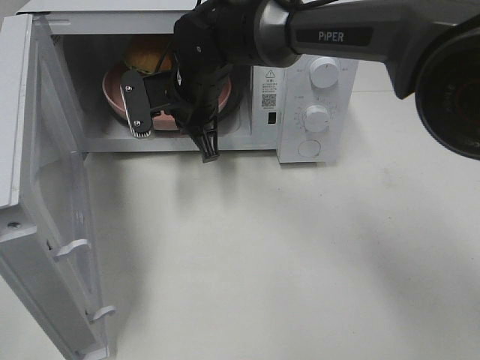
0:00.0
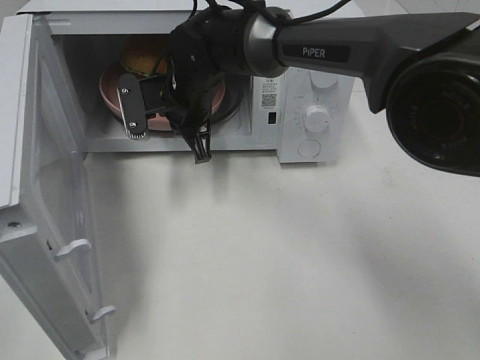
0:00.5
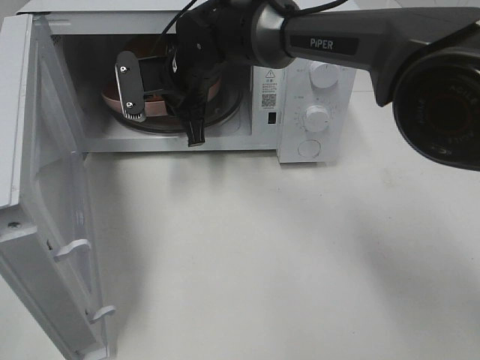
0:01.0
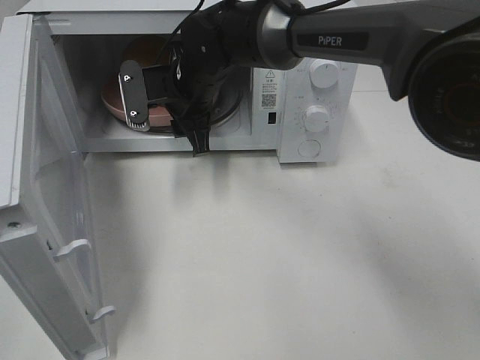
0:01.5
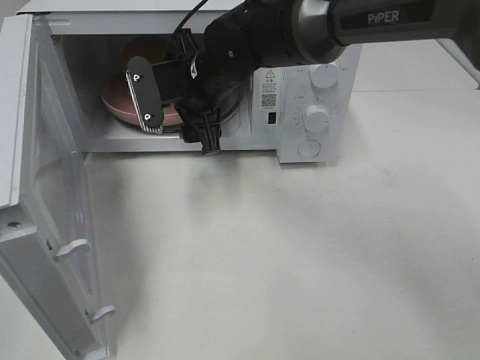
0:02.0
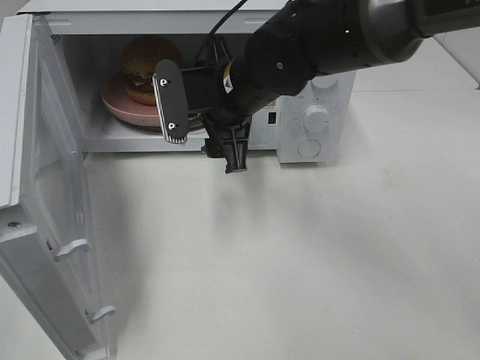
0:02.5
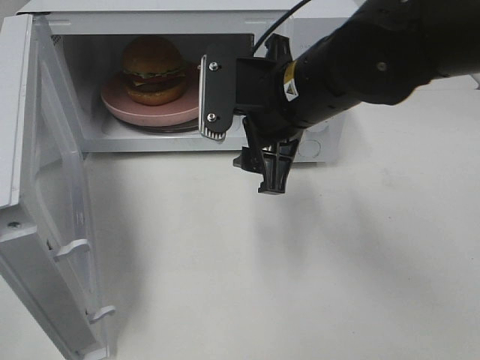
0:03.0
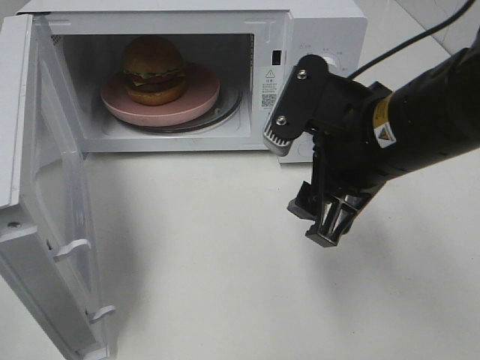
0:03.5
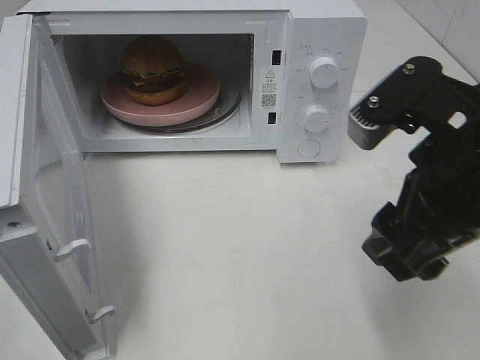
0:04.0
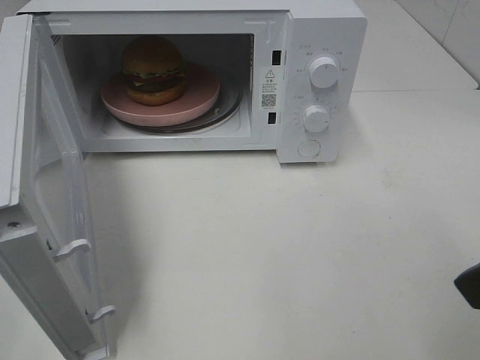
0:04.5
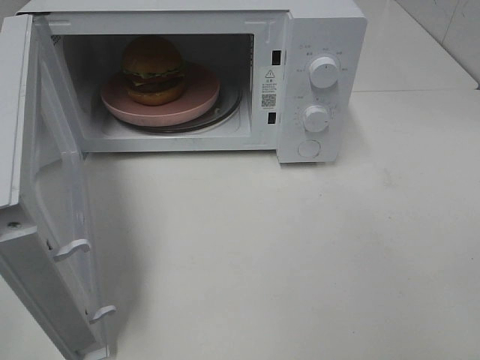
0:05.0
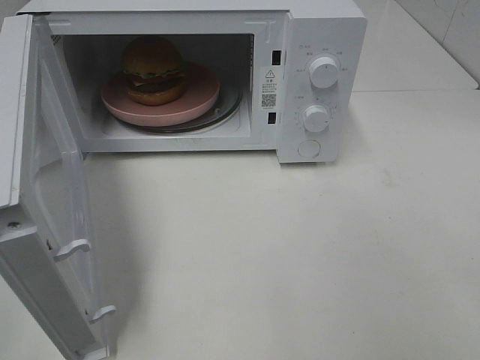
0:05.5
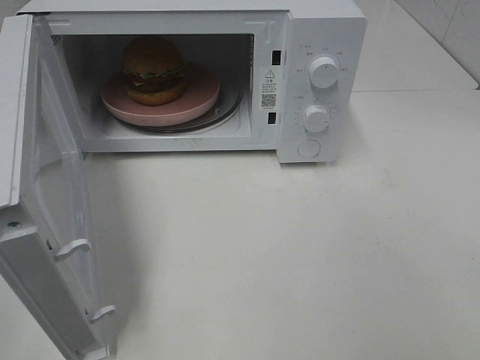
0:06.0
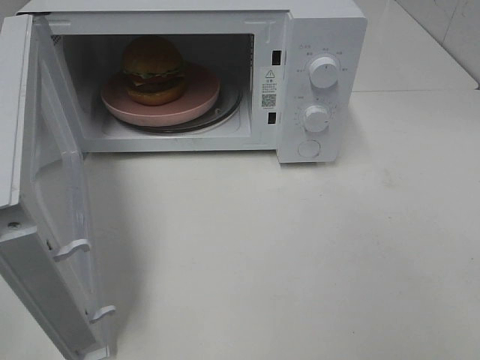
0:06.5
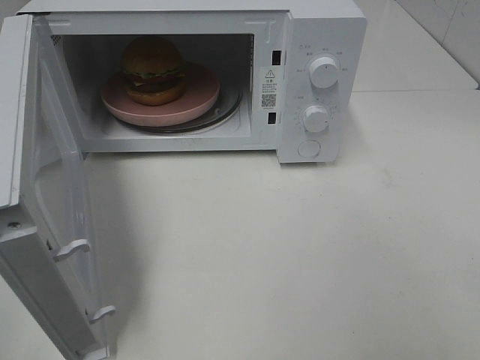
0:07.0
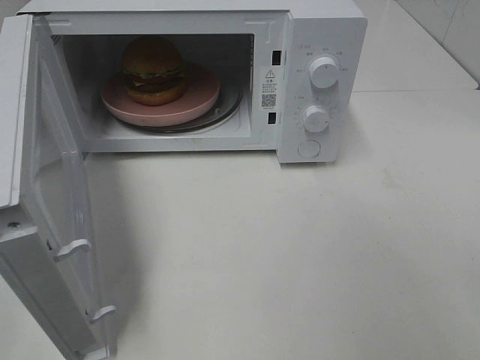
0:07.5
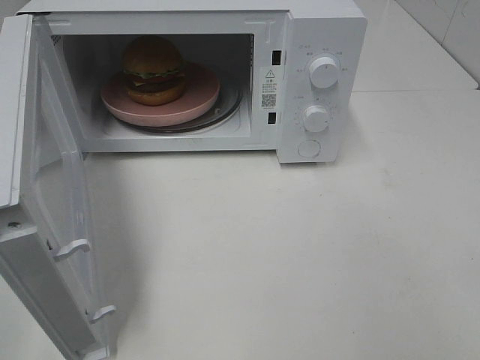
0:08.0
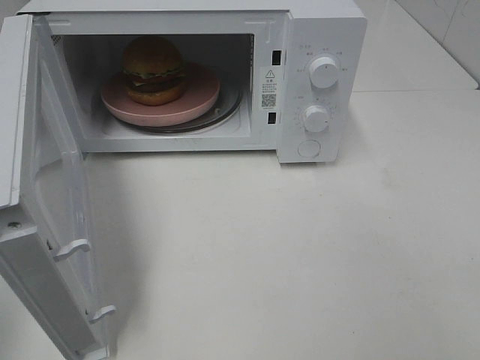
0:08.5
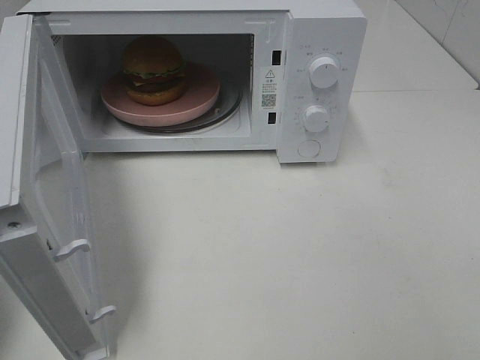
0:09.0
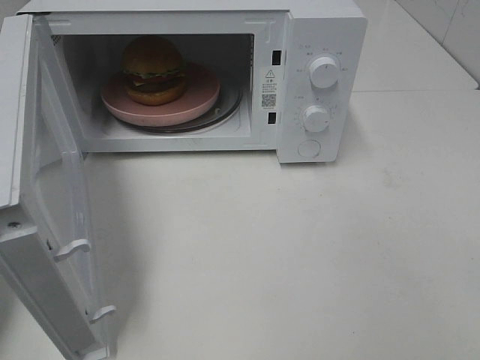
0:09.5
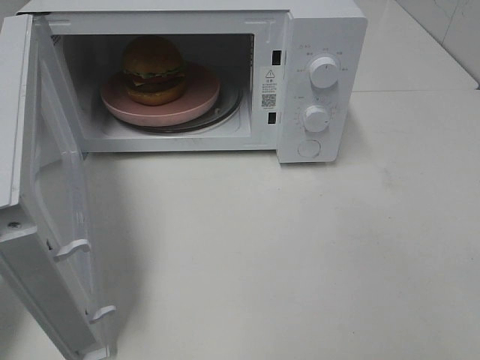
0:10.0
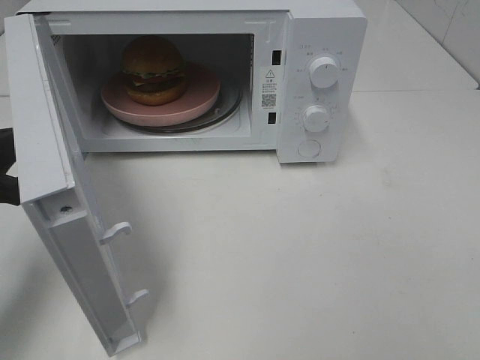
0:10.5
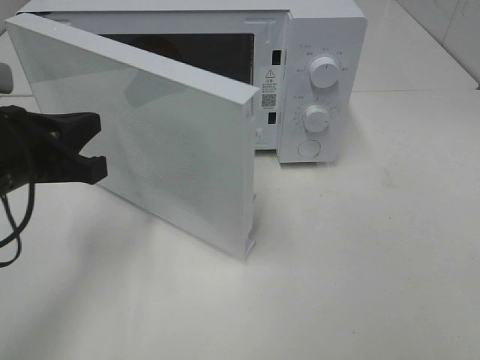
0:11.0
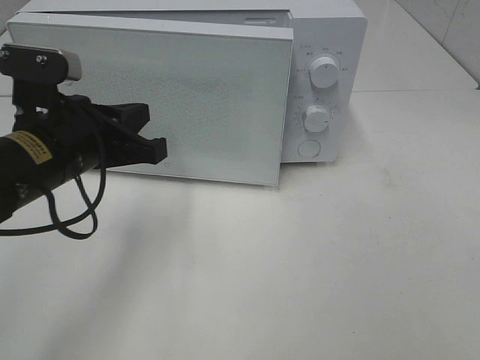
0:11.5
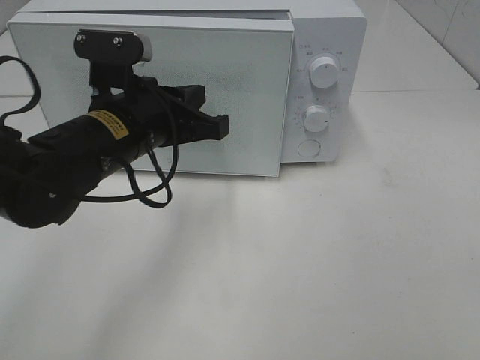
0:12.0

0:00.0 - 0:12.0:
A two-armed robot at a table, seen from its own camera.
Task of the whole recording: Heat the burger.
0:00.0 - 0:02.0: The right gripper opens its fingers.
0:02.0 - 0:04.0: The right gripper goes about 30 cm backward and to the right.
0:04.0 - 0:06.0: The right gripper heads backward and to the right, covering approximately 20 cm.
0:06.0 - 0:08.0: Both grippers stay about where they are.
0:08.0 - 0:10.0: The left gripper is displaced forward and downward by some 20 cm, and closes up.
0:10.0 - 0:12.0: The left gripper heads to the right and forward, covering about 20 cm.

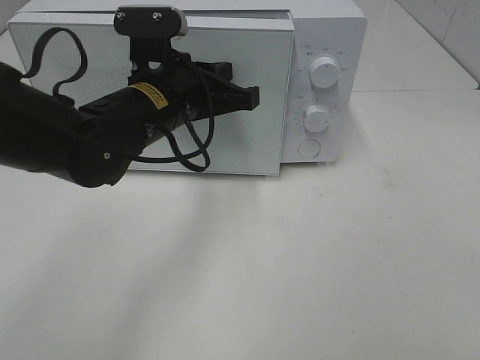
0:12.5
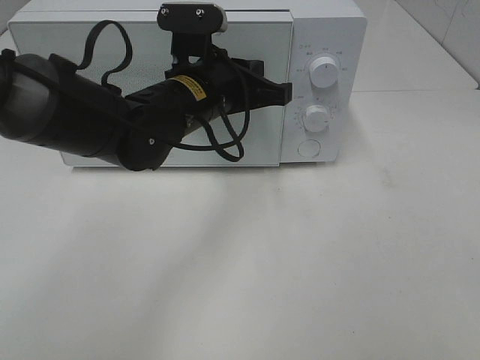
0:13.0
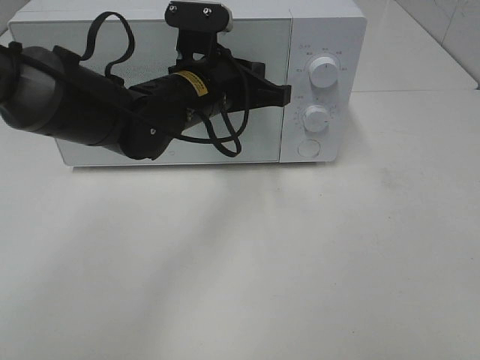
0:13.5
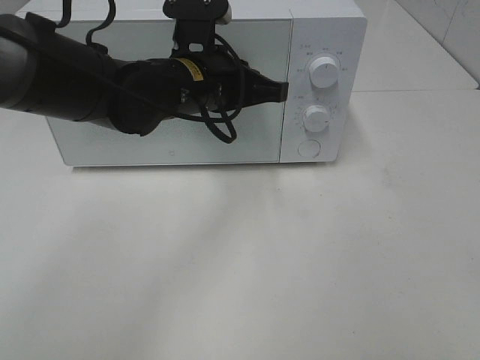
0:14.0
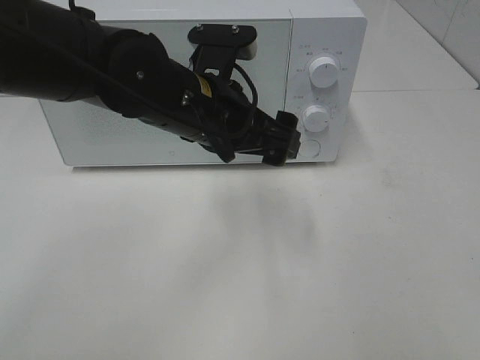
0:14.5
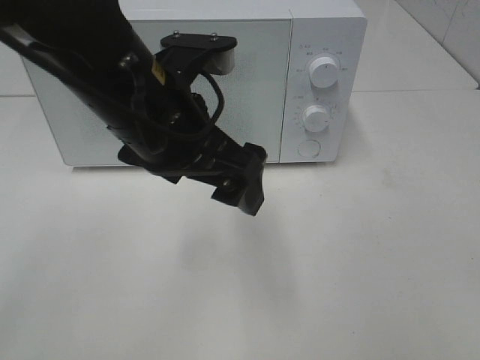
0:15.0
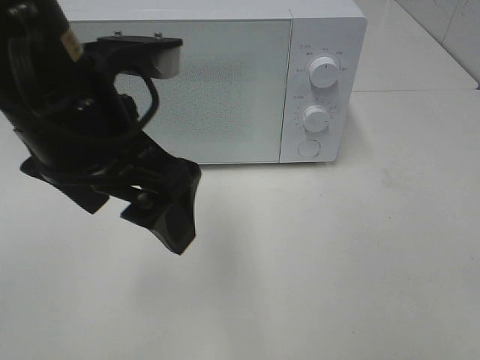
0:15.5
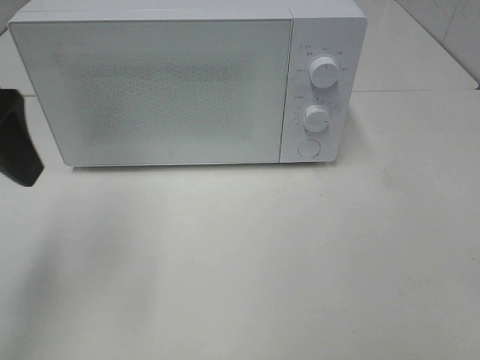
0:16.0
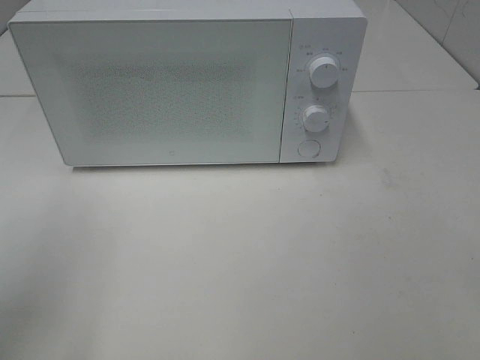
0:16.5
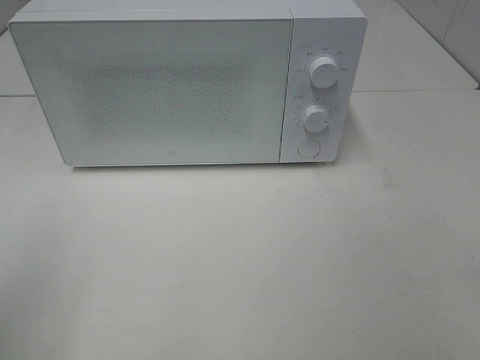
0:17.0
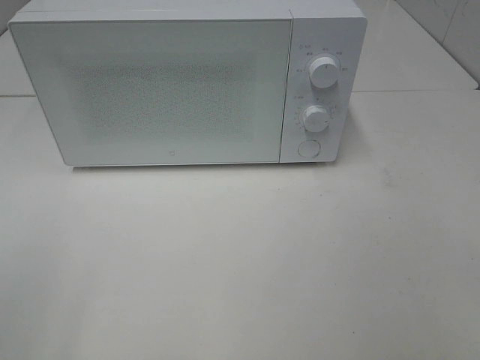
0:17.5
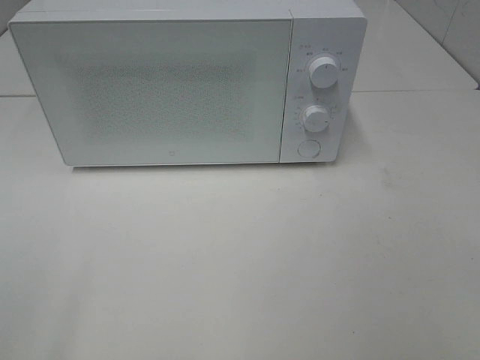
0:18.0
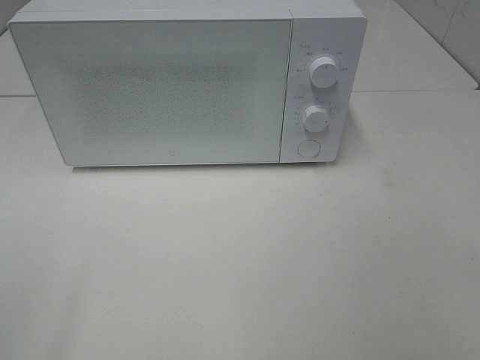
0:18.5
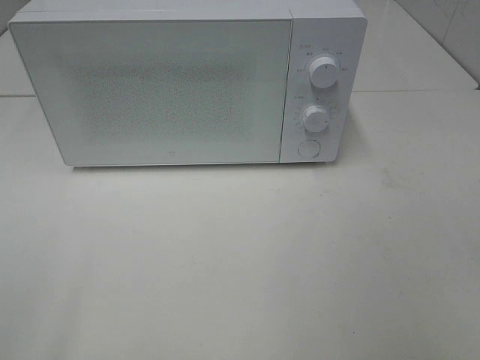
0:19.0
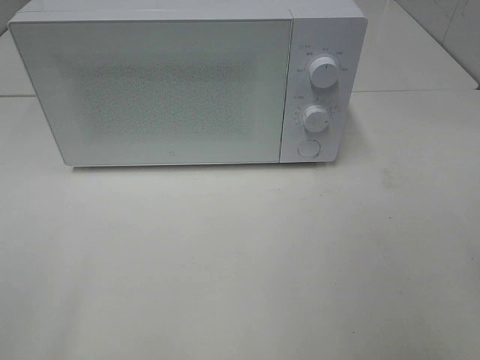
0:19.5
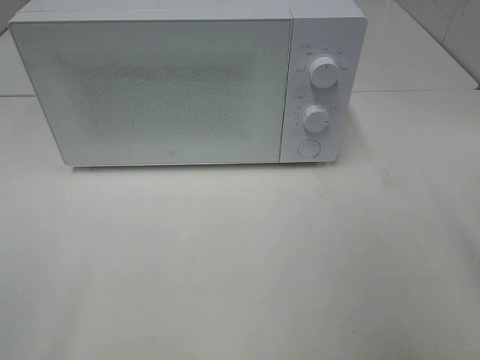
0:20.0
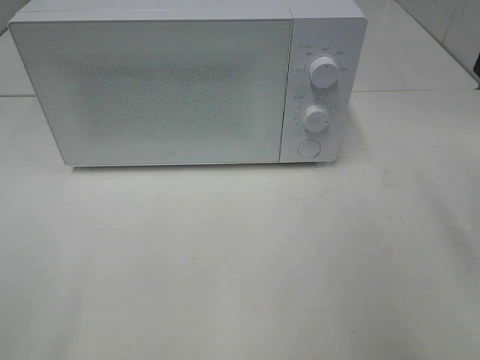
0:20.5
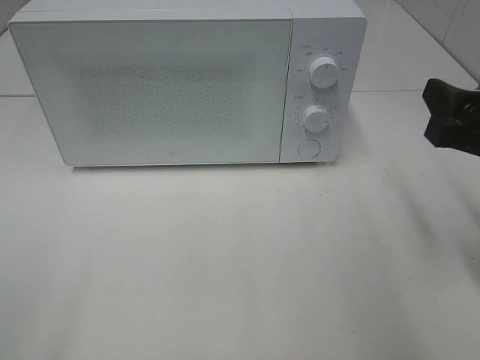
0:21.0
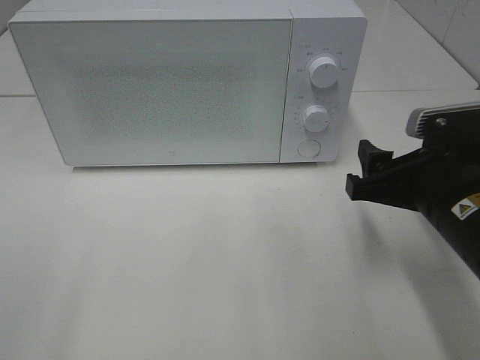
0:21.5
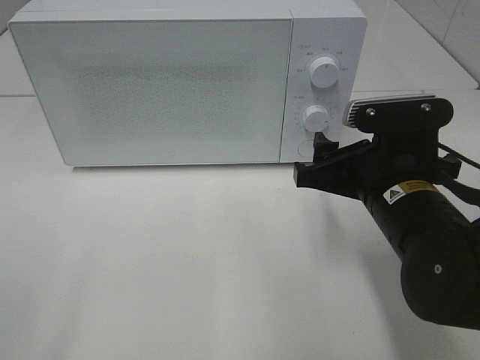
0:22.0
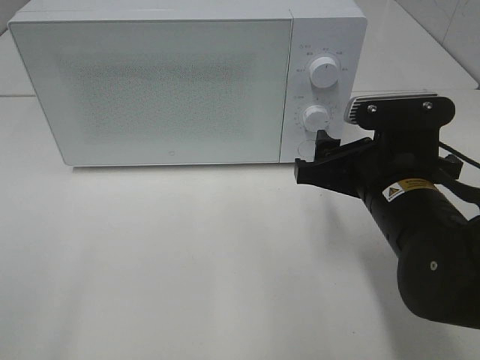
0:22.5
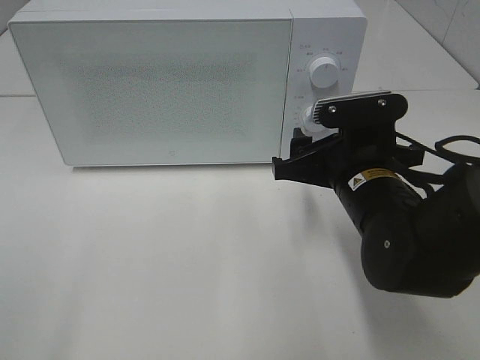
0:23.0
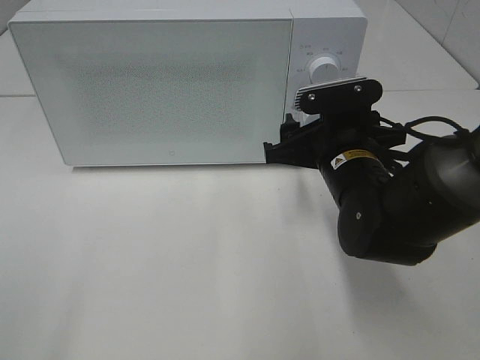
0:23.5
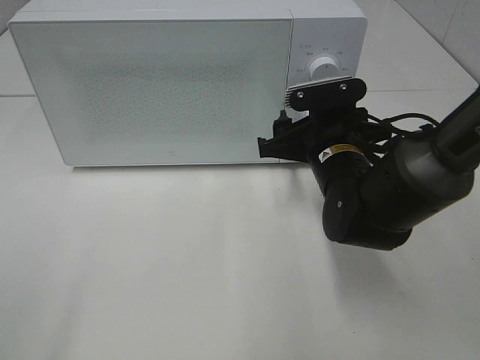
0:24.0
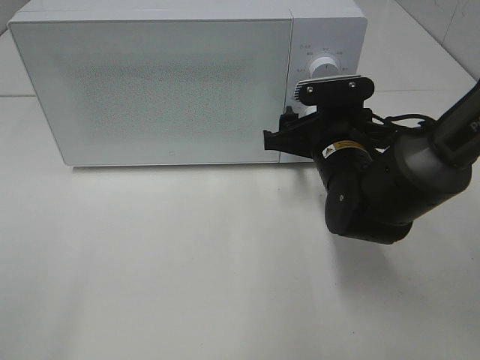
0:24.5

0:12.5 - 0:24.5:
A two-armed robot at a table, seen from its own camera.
Task of the whole recording: Heat the burger.
0:12.5 - 0:14.5: The left gripper opens its fingers.
0:14.5 - 0:16.5: The left gripper is displaced to the left and backward by some 30 cm.
0:16.5 - 0:18.5: The left gripper travels backward by roughly 15 cm.
0:20.5 - 0:22.5: The right gripper is displaced to the left and downward by about 15 cm.
0:22.5 - 0:24.5: The right gripper goes roughly 10 cm forward.

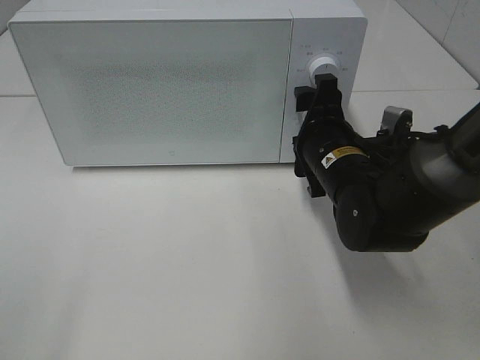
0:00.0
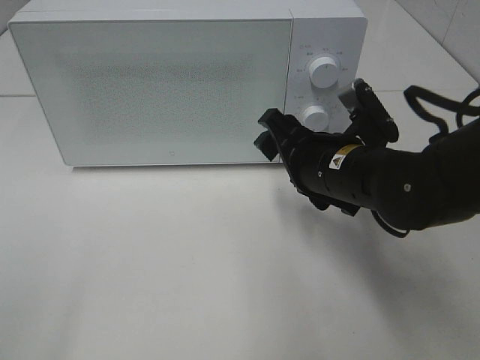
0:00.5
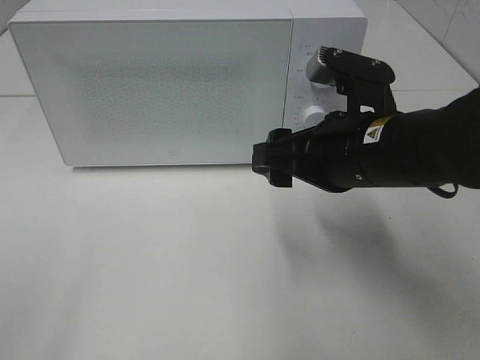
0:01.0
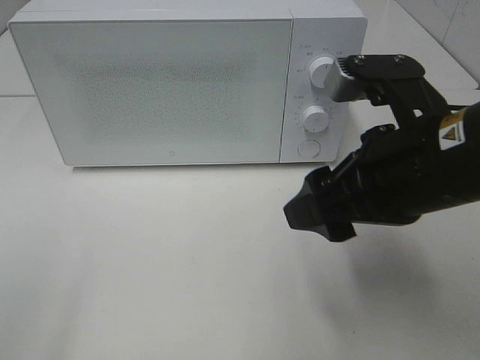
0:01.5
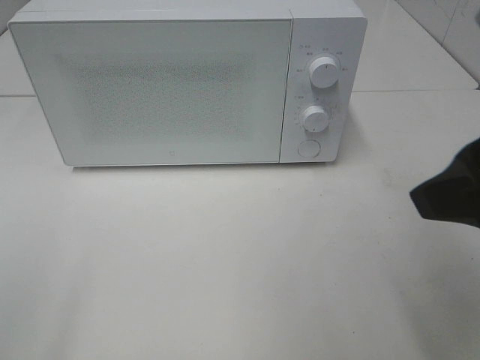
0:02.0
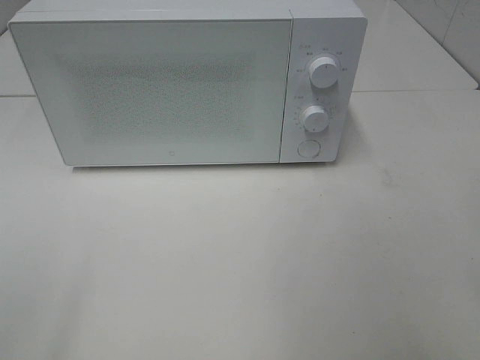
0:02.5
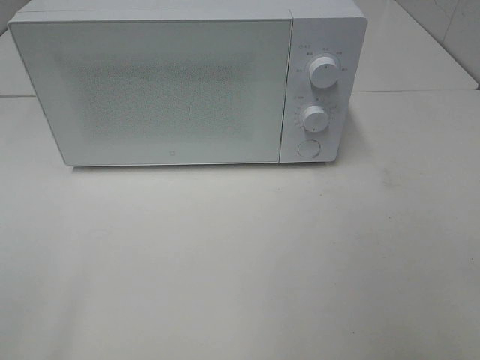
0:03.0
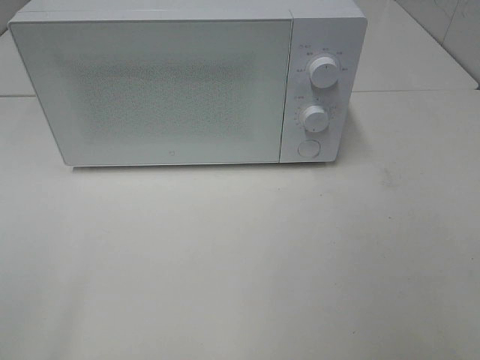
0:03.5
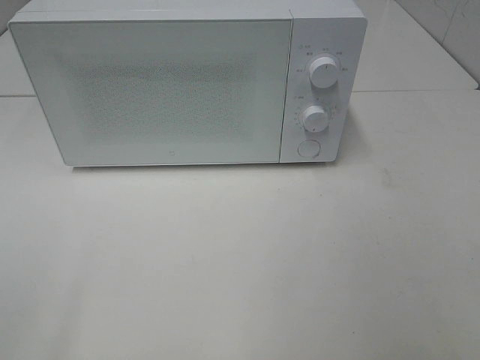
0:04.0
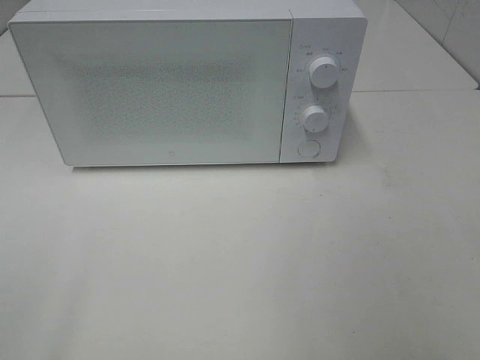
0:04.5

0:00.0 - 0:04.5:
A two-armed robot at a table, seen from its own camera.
Task of the whole recording: Heat the burger.
0:00.0 - 0:02.0: The right gripper heads upward and backward, covering approximately 25 cm.
0:02.0 - 0:04.5: The right gripper moves backward and to the right, approximately 15 cm.
